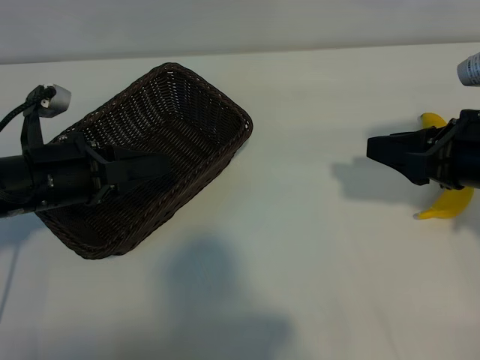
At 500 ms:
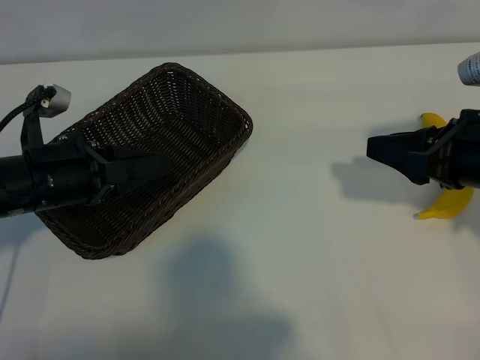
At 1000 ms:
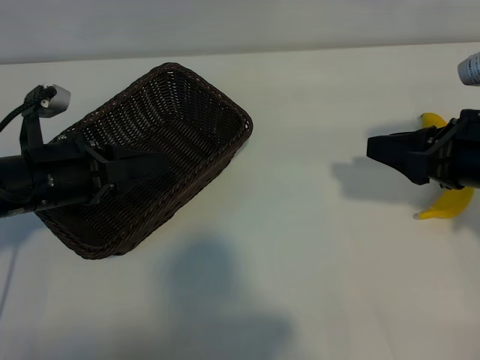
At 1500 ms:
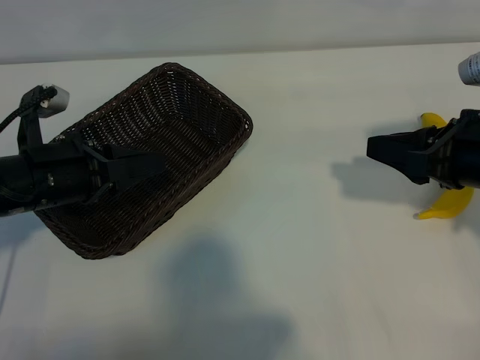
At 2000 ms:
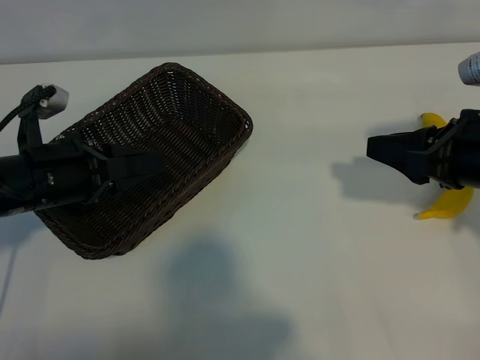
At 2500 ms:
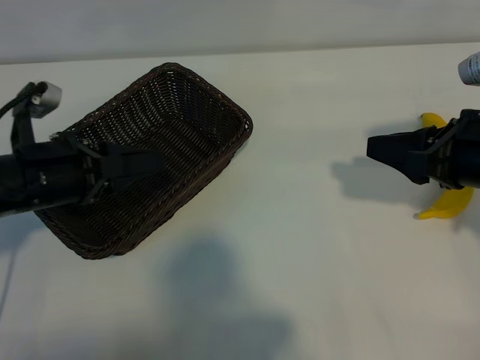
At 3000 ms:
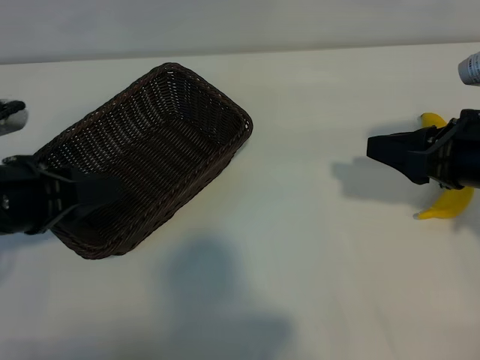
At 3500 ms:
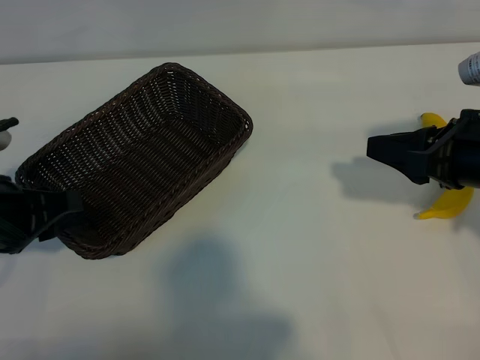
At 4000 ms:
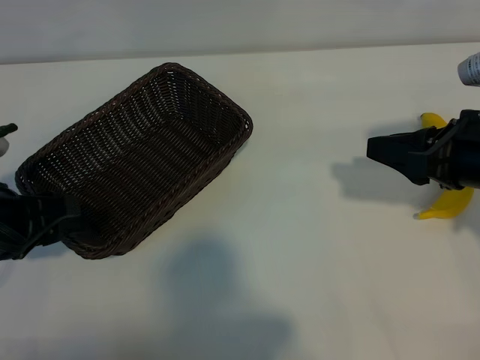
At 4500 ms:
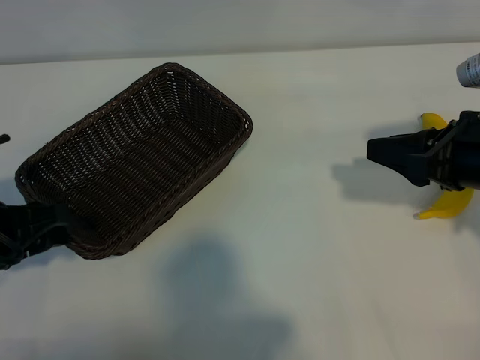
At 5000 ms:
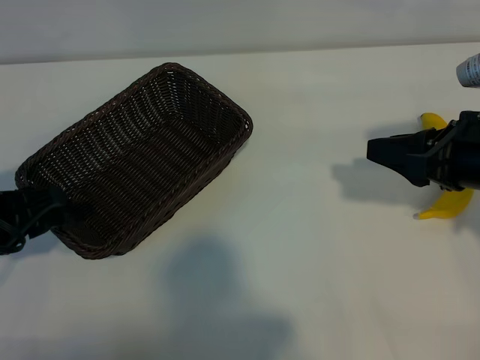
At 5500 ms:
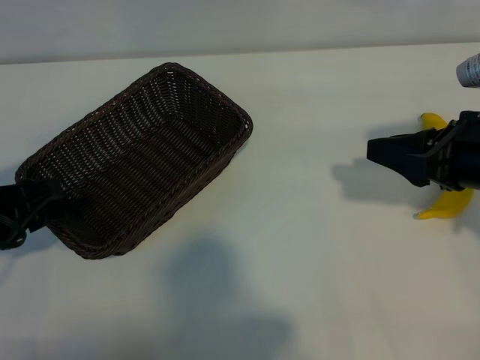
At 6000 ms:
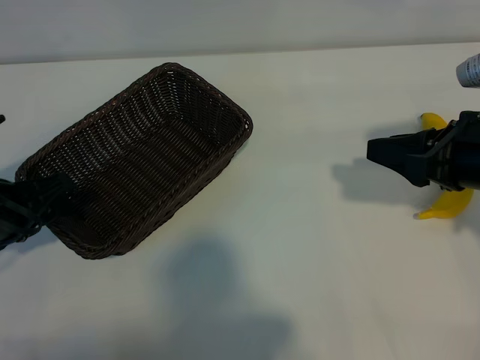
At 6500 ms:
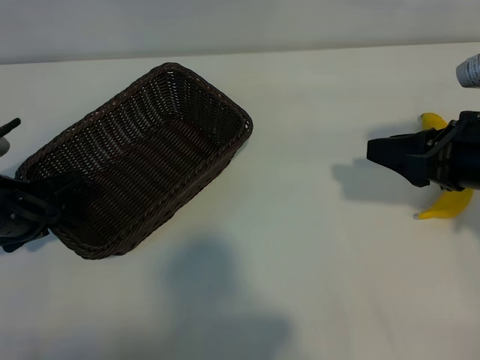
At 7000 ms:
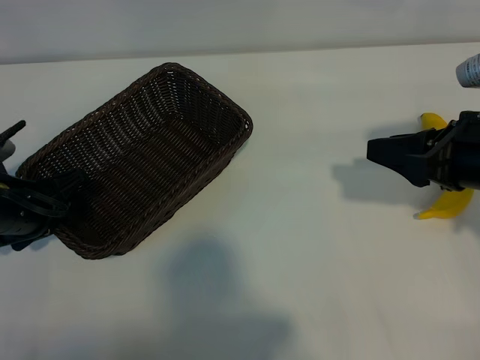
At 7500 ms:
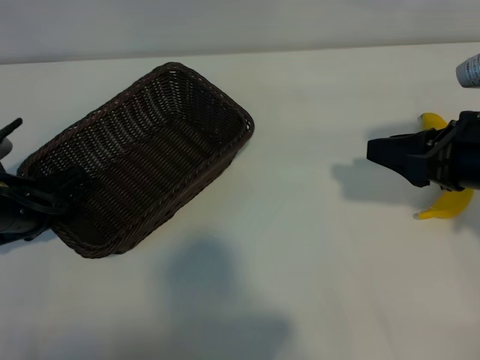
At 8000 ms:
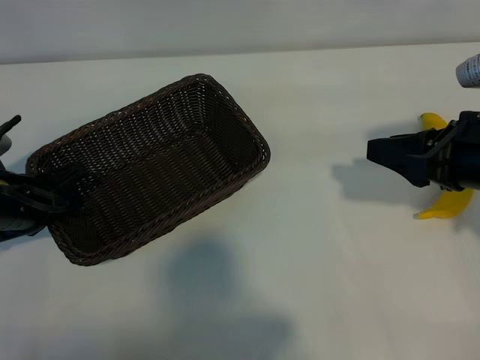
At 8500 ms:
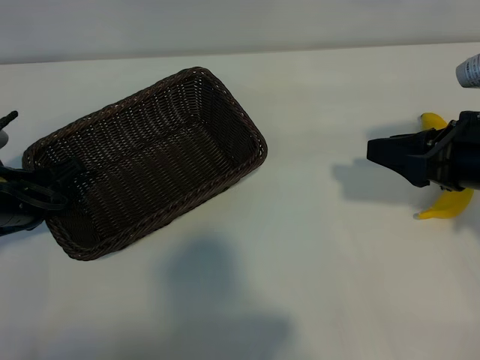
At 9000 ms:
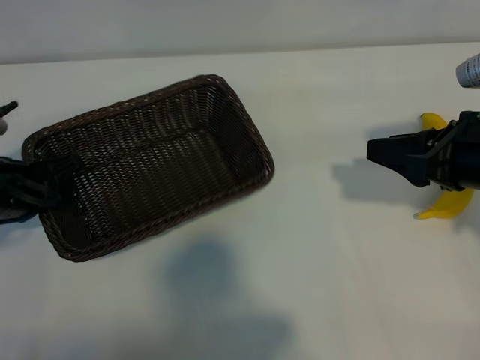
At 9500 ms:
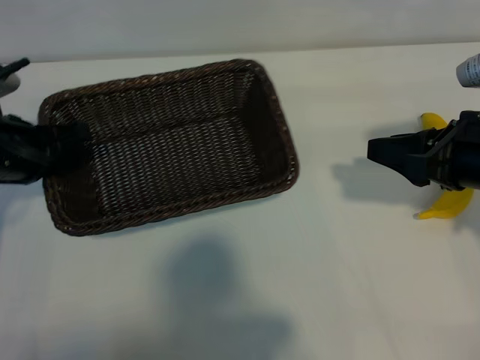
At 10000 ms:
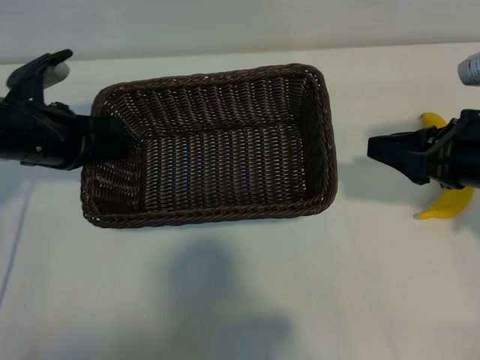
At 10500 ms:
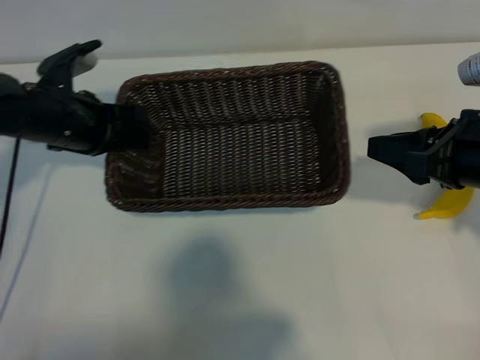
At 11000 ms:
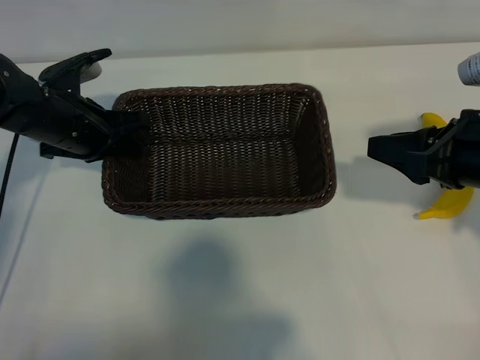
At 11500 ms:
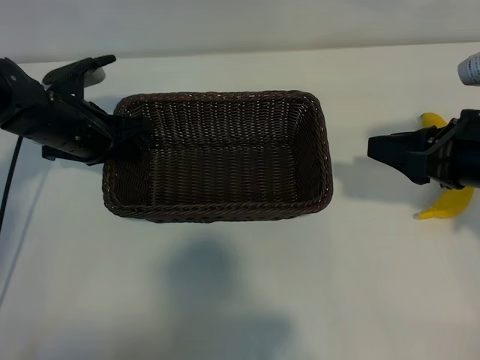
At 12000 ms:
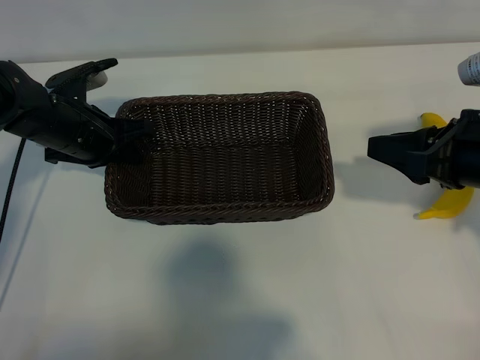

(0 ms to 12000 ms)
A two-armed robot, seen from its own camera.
Task of the whole recording: pick up the banana and put it into the basket.
Step, 1000 ms - 8000 ms: Grasp the basket with the left gripper.

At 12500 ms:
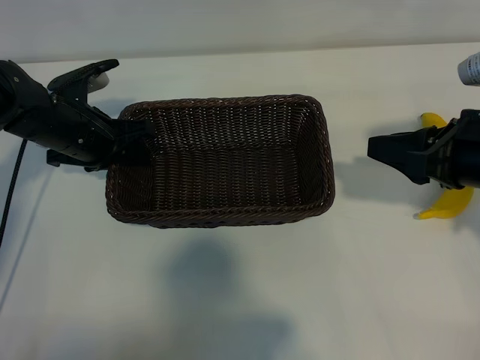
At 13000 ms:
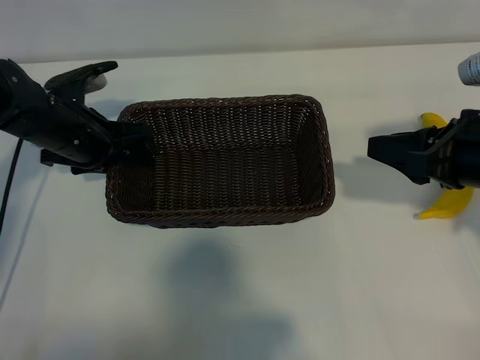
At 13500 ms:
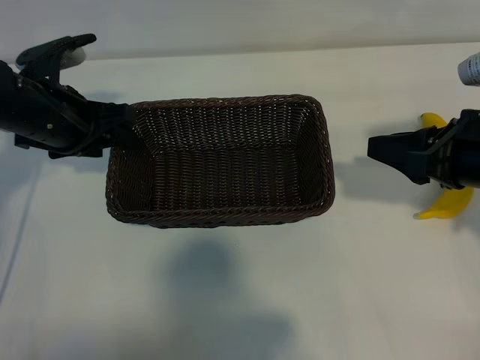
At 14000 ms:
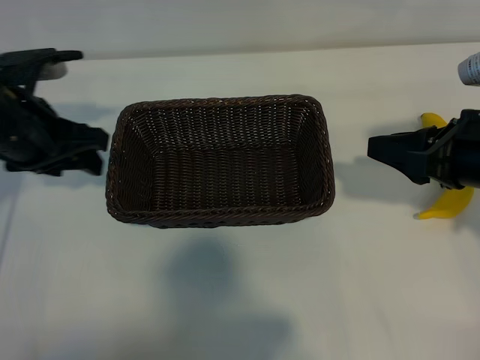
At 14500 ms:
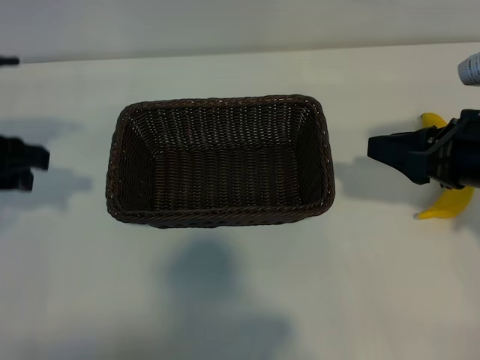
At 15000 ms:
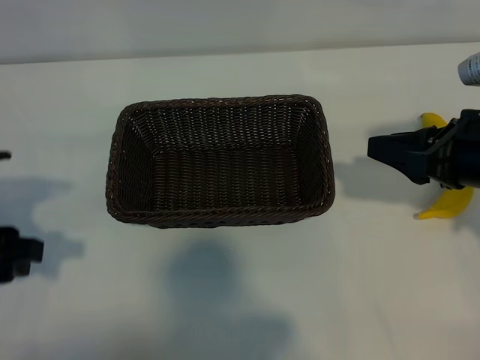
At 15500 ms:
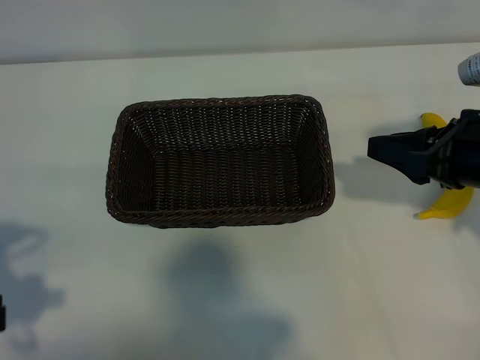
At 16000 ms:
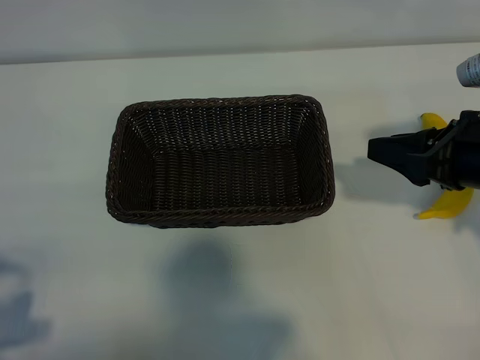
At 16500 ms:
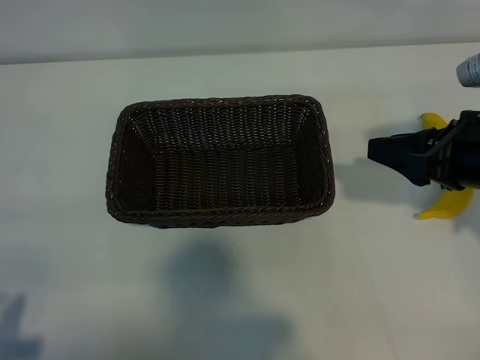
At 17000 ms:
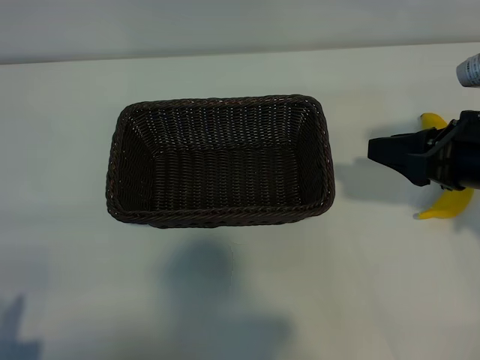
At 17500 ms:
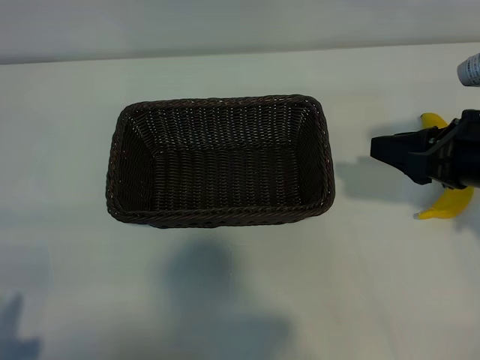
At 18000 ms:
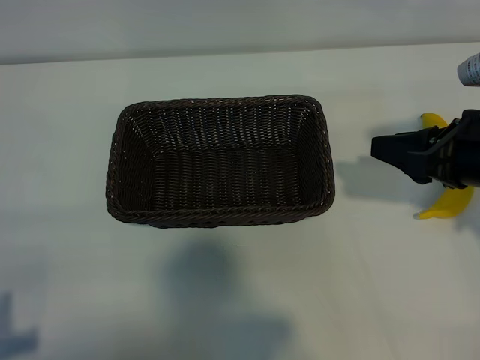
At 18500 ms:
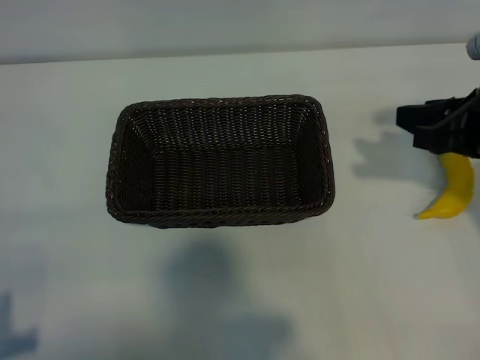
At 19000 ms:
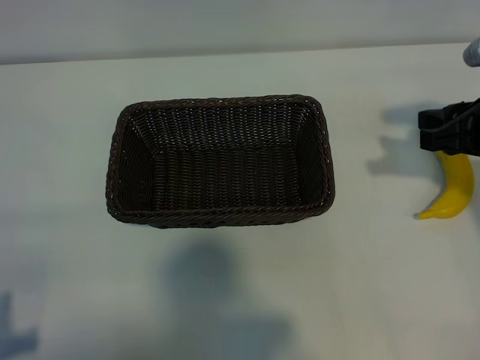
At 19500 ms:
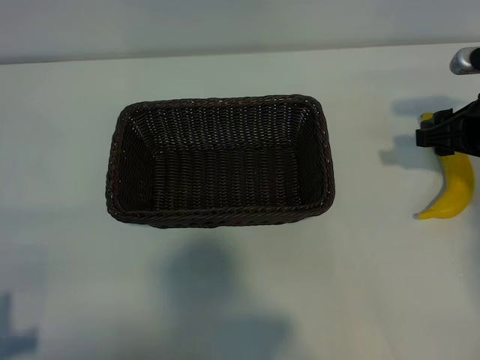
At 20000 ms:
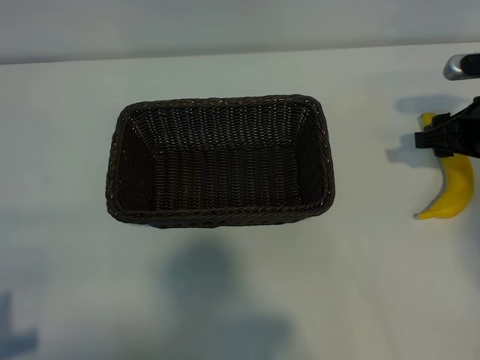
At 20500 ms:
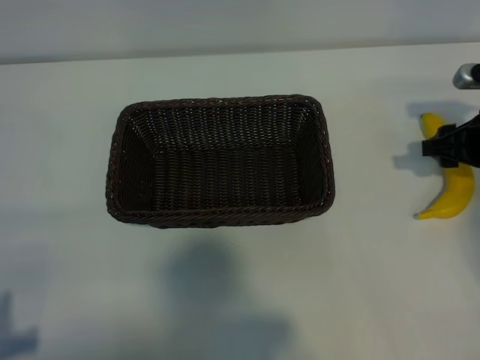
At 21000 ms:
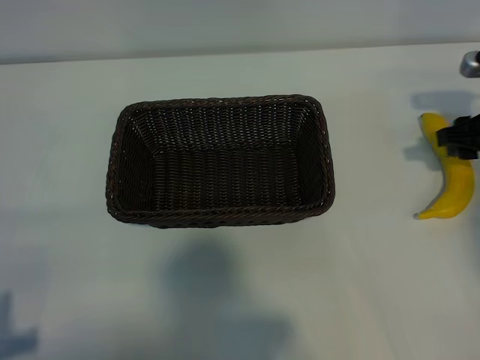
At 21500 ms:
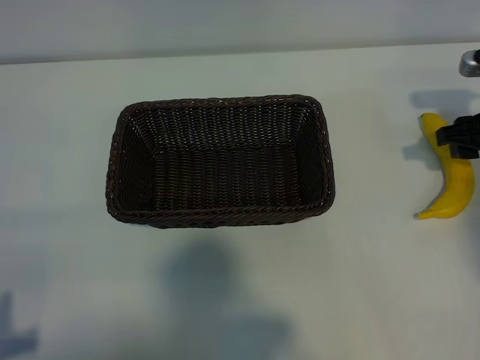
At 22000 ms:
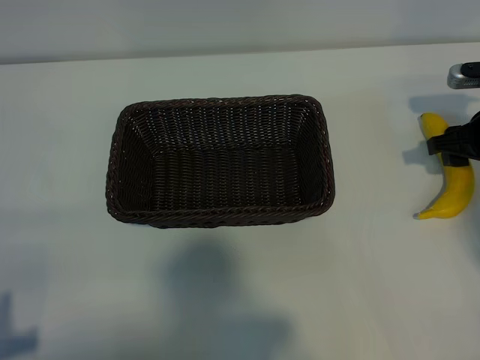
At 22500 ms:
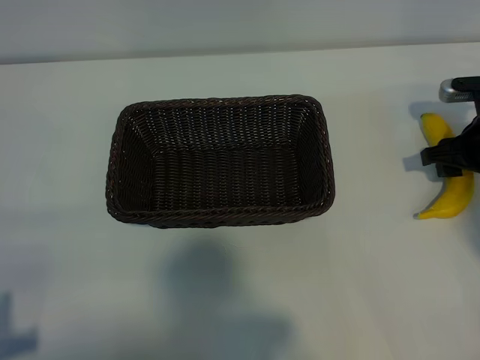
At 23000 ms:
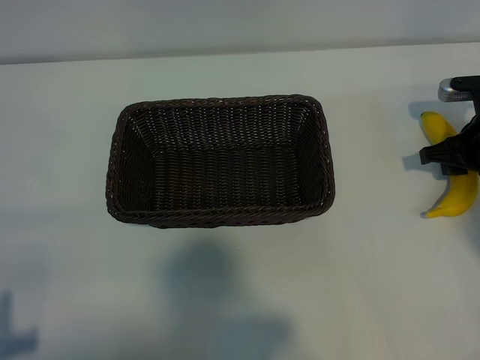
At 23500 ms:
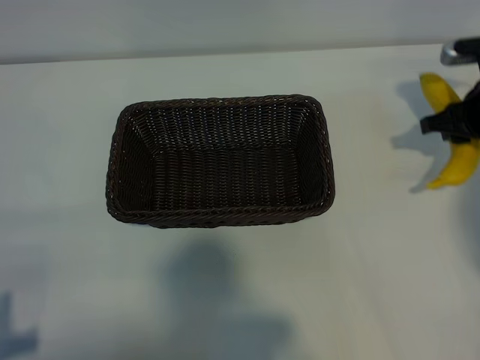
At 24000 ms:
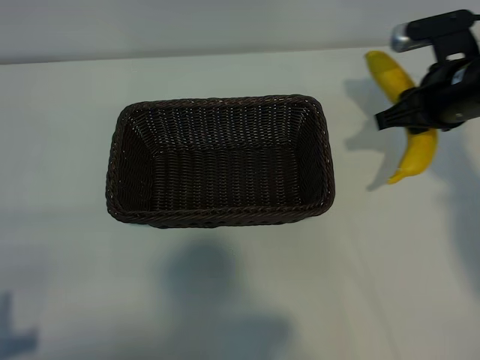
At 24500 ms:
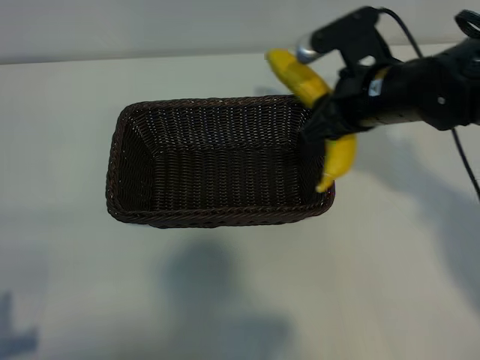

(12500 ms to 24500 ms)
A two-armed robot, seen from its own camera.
Task of the whole recording: pick up the banana and put it into the basket.
Step, 14500 ms - 22500 ms: Grasp the banana with right gripper.

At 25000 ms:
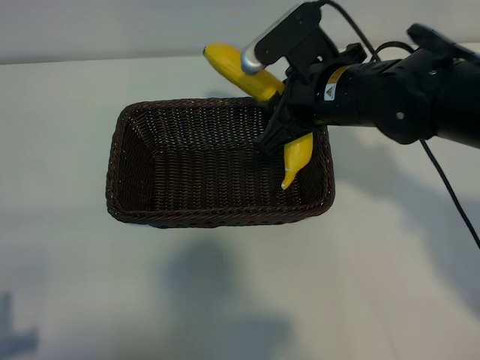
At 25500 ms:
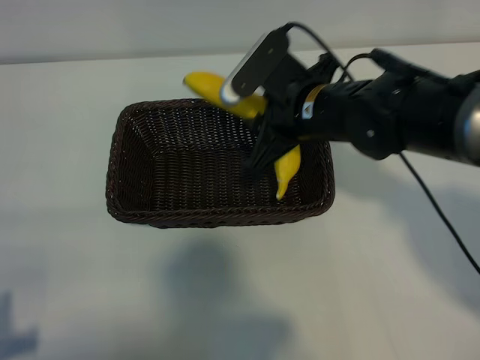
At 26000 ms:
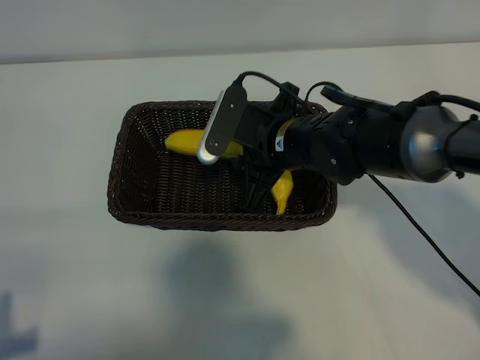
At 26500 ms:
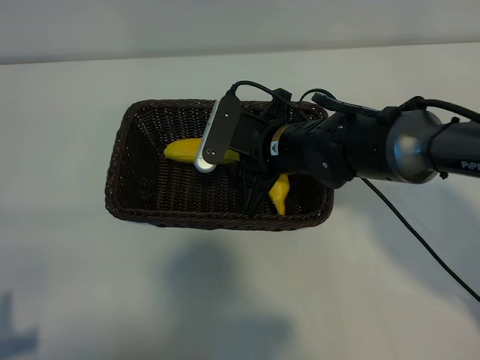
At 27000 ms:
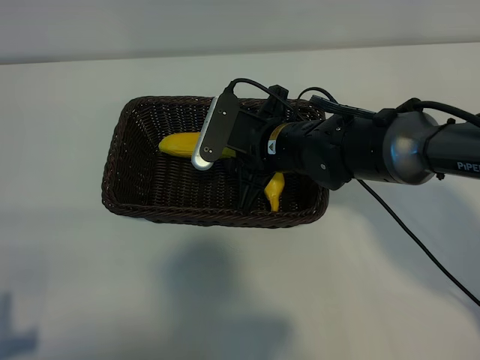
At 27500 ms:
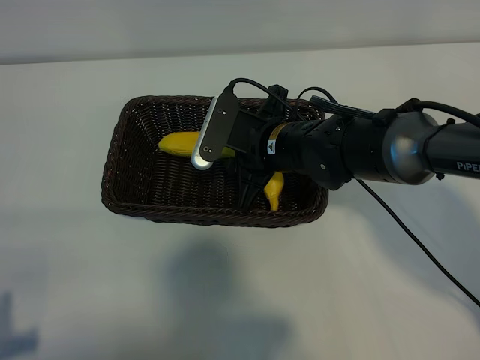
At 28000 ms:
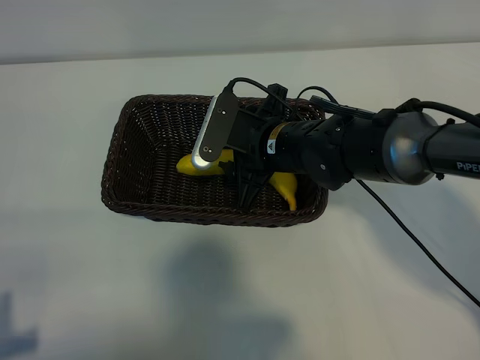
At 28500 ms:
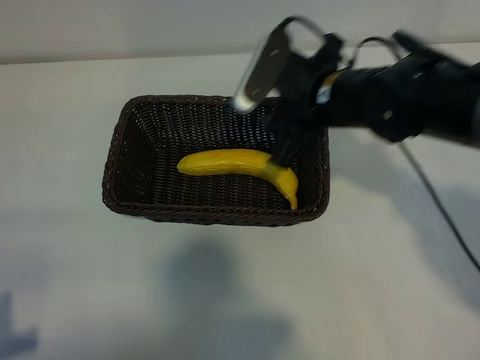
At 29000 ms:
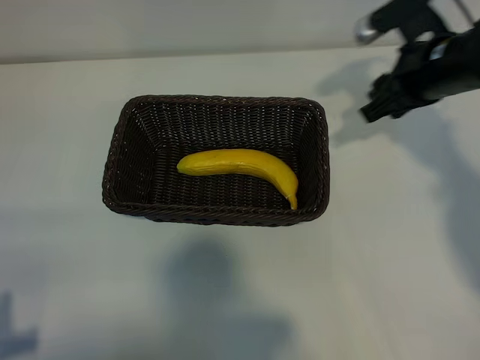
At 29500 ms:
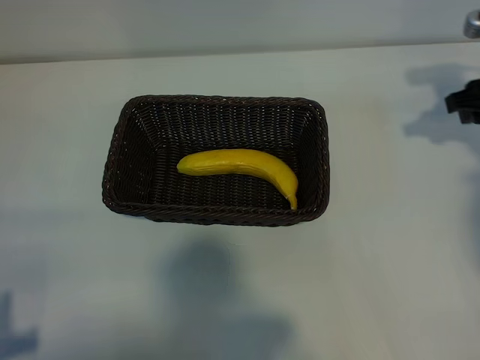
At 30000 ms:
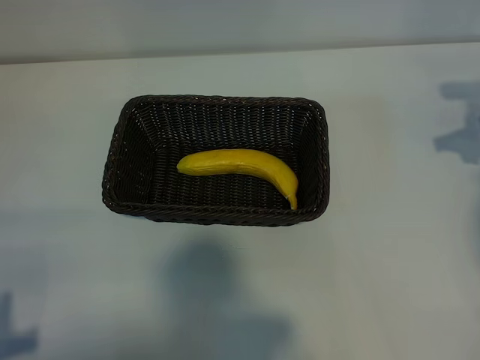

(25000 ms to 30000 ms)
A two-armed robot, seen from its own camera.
Task of the whole recording: pick up the banana and put it into the basket.
Step, 25000 ms - 28500 ms: Place the banana in the basket with right gripper.
